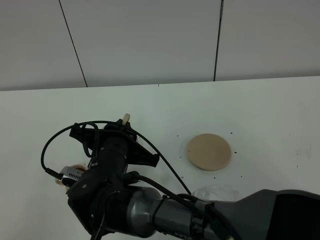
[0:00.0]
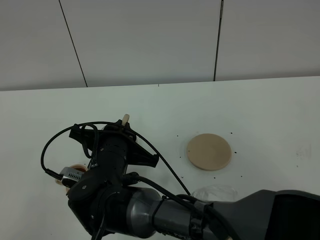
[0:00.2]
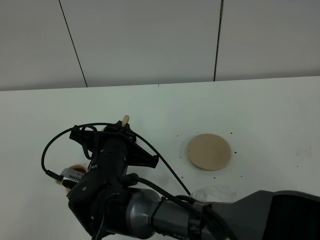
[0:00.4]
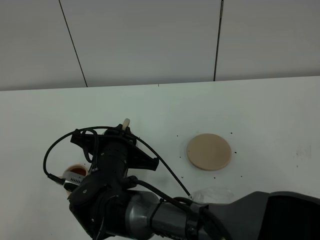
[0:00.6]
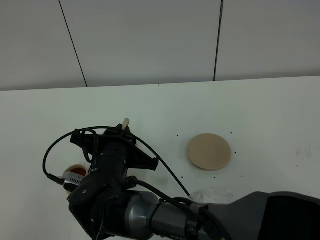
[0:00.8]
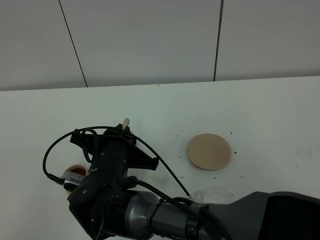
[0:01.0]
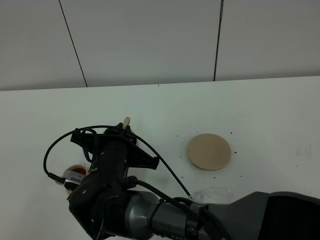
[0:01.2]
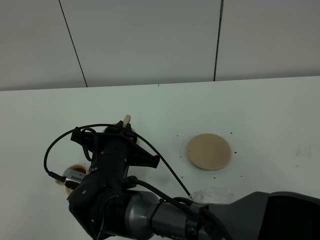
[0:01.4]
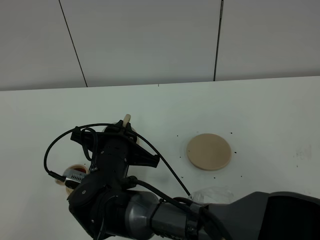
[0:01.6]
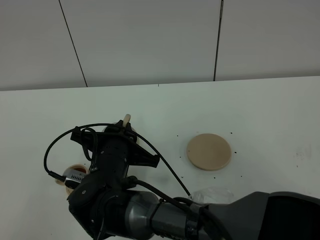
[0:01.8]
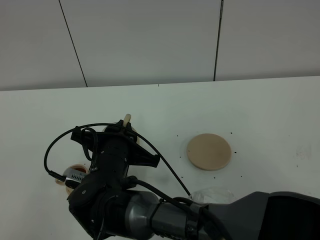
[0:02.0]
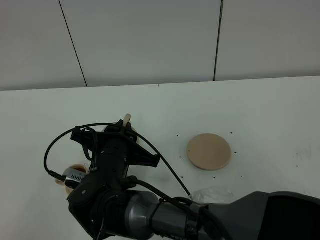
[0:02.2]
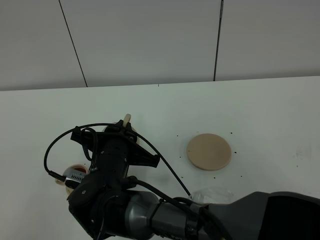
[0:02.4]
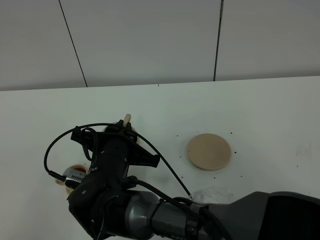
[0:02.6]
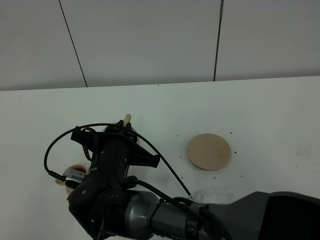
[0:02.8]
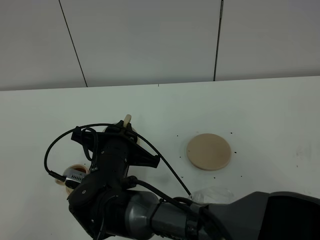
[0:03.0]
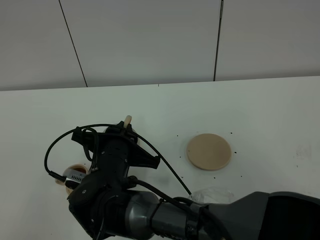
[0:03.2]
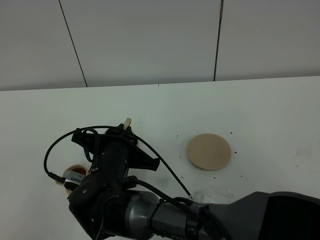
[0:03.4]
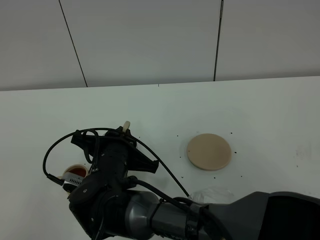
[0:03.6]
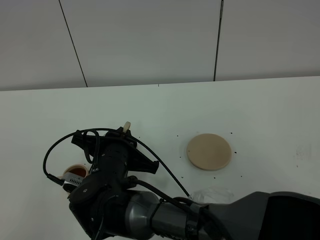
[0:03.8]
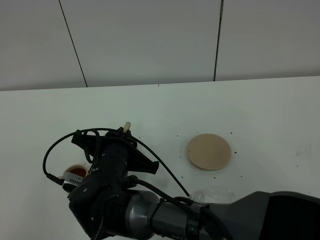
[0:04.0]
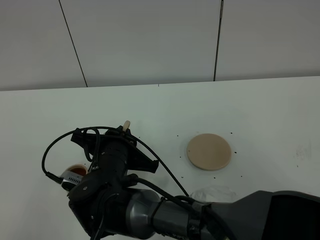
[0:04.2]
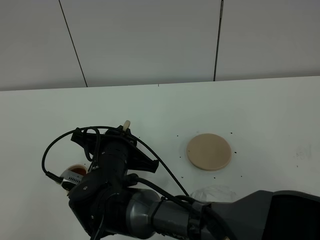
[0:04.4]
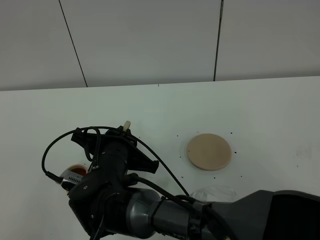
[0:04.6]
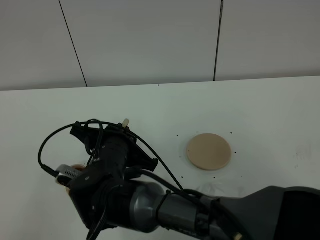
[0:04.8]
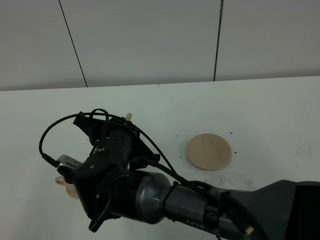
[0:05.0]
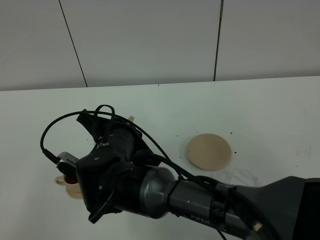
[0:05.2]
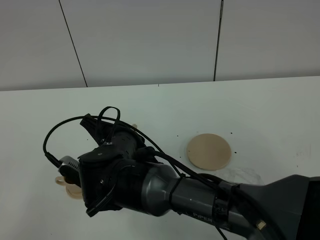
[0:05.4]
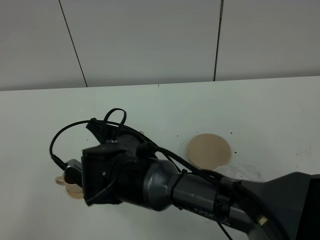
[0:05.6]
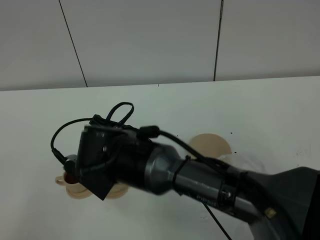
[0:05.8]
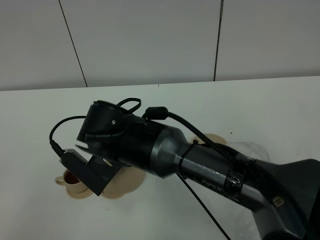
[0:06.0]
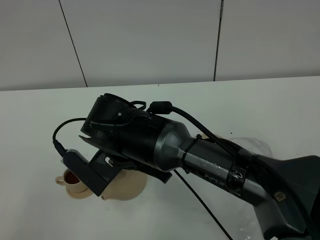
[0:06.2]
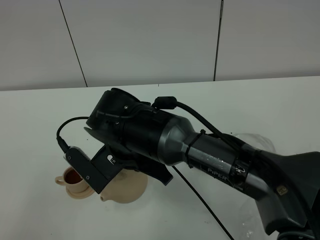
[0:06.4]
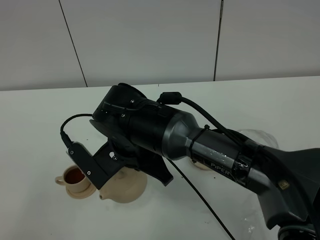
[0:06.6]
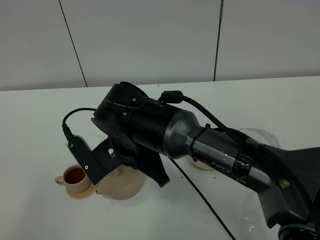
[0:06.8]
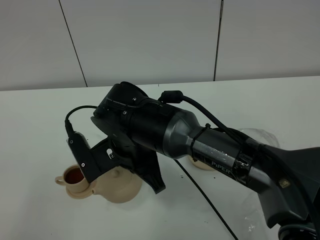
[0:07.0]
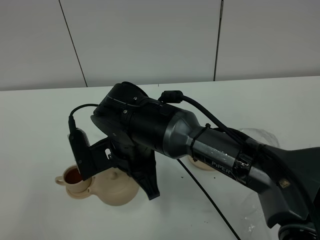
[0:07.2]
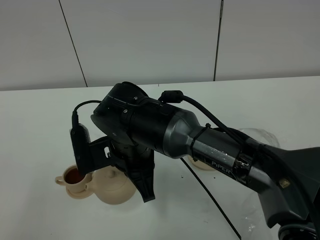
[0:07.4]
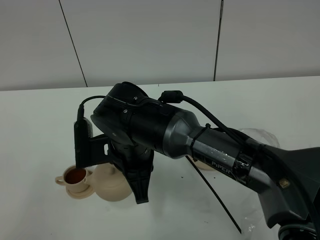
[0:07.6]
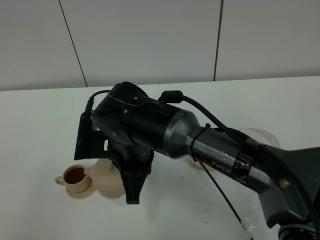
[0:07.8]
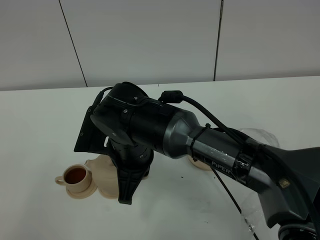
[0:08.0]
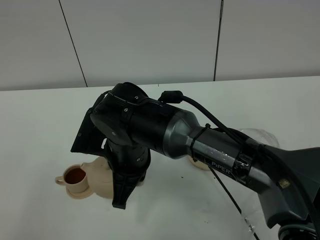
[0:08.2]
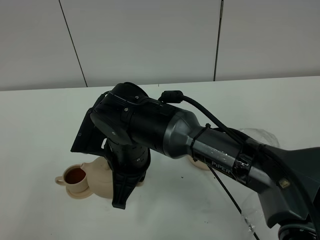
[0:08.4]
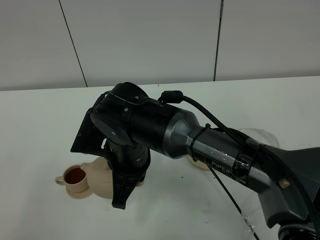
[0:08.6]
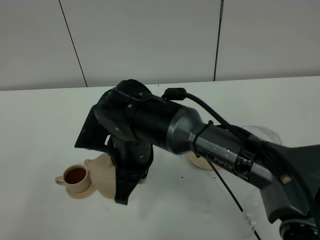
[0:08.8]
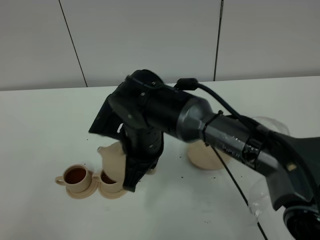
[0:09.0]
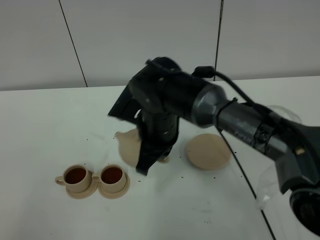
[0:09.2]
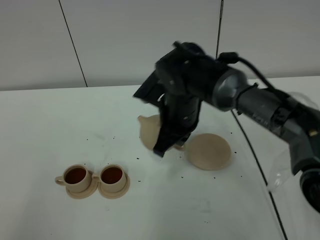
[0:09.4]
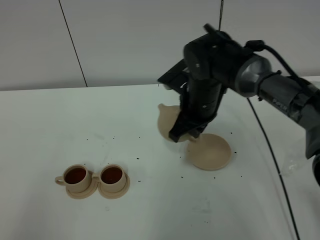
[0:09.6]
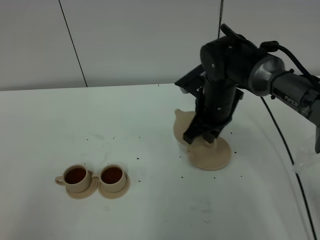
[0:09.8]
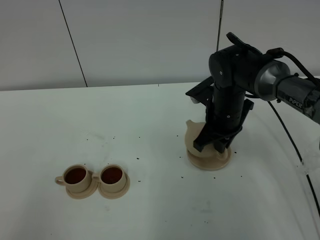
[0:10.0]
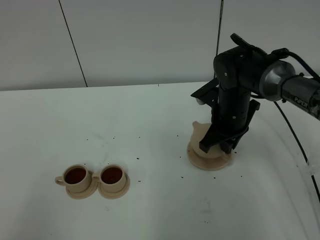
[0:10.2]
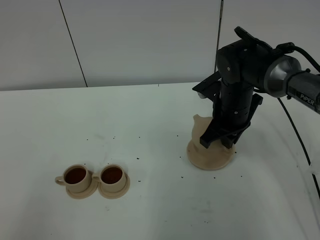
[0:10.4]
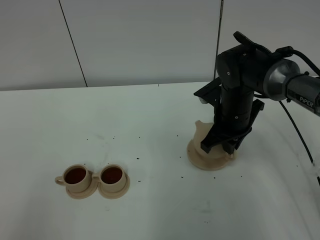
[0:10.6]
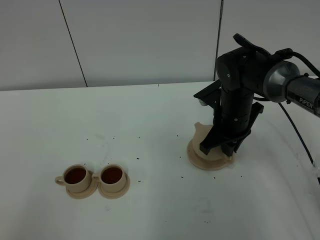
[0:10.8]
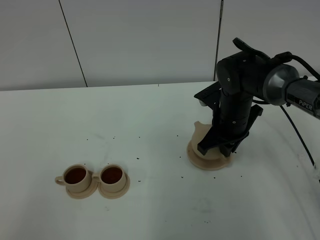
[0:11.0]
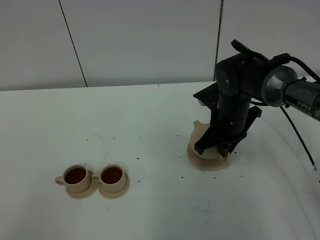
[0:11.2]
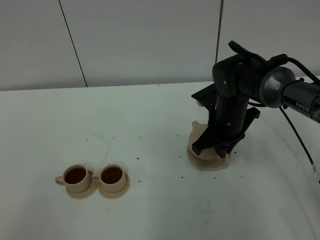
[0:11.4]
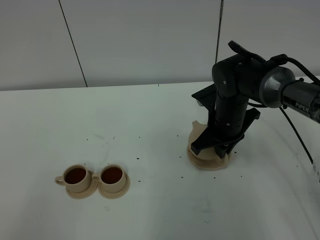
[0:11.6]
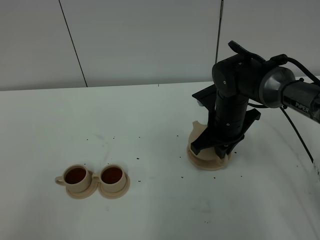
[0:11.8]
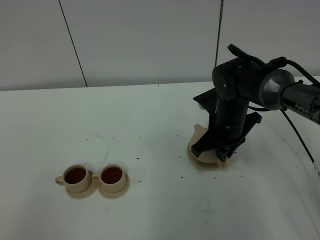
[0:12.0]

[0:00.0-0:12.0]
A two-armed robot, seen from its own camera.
Task of the whole recording: grasp the brown teapot and pour the tea into the two brown teacups one by one, put the brown teapot back in its original place.
Step, 0:00.0 to 0:06.0: Pour tea into the teacup with the right gripper.
0:00.0 to 0:03.0: Both grippers stay put.
0:03.0 to 0:04.4: The grippers stay close to where they were, moving slightly.
0:04.4 to 0:06.0: The right gripper shifts approximately 5 cm upward.
0:09.0 to 0:10.4: The right gripper shifts roughly 20 cm to the right and forward.
0:10.4 to 0:12.0: The grippers move only a little.

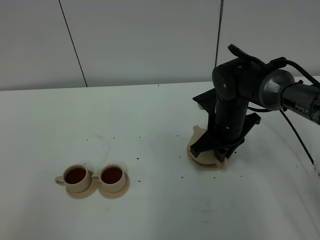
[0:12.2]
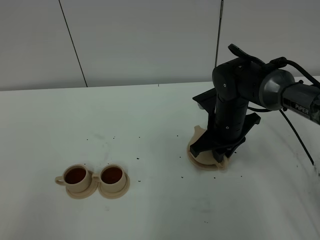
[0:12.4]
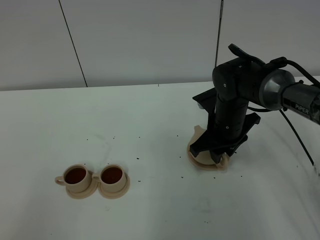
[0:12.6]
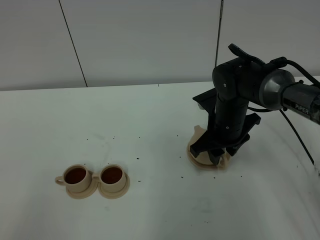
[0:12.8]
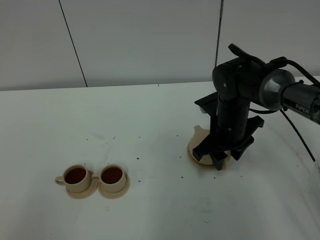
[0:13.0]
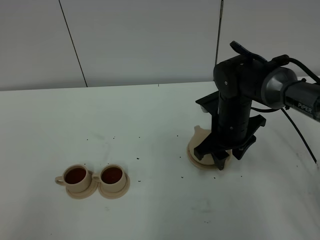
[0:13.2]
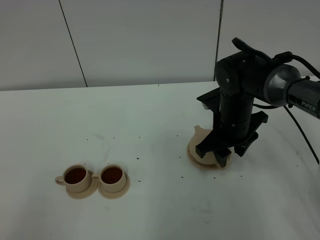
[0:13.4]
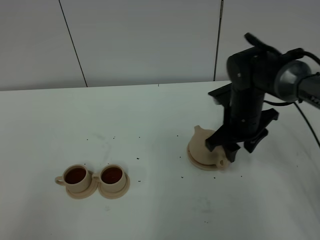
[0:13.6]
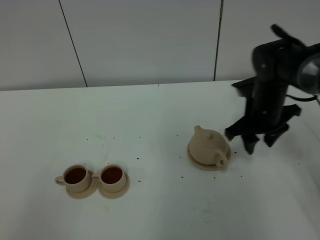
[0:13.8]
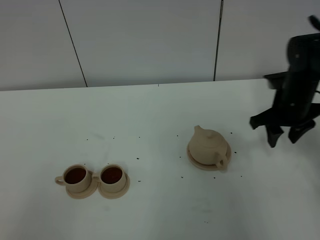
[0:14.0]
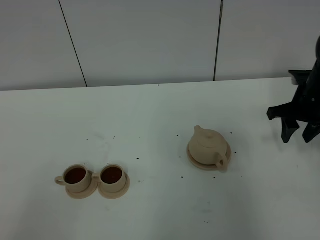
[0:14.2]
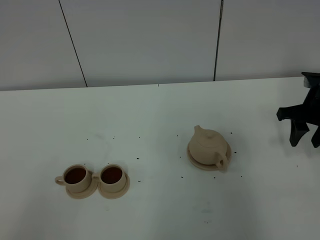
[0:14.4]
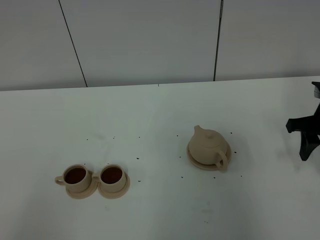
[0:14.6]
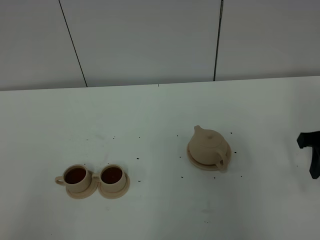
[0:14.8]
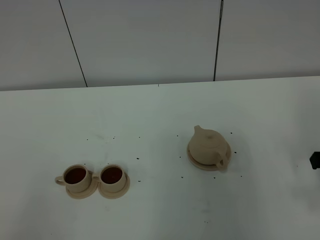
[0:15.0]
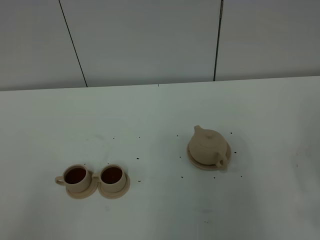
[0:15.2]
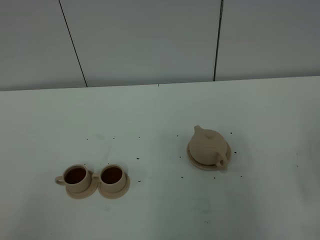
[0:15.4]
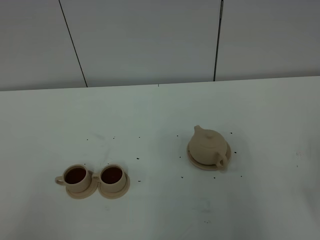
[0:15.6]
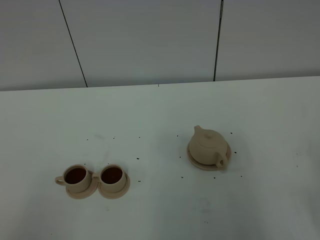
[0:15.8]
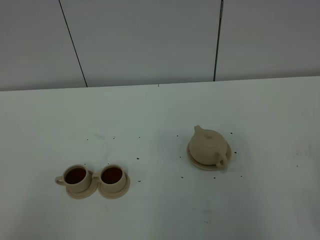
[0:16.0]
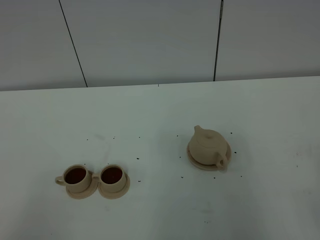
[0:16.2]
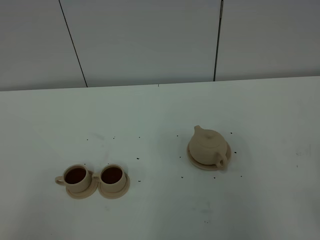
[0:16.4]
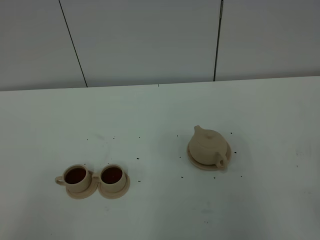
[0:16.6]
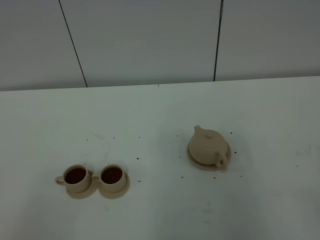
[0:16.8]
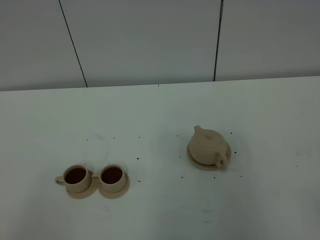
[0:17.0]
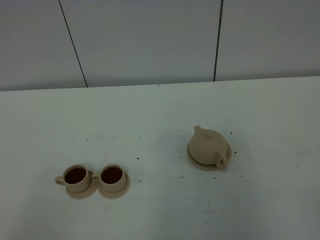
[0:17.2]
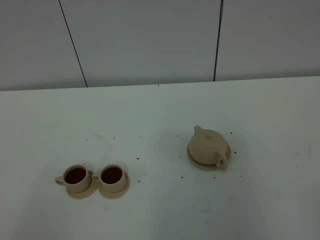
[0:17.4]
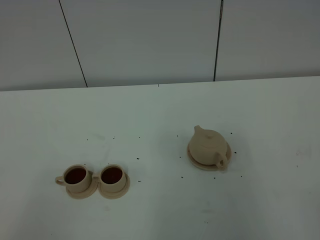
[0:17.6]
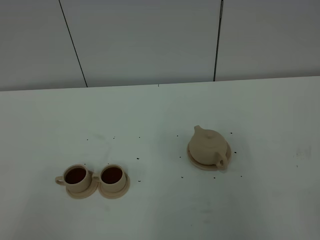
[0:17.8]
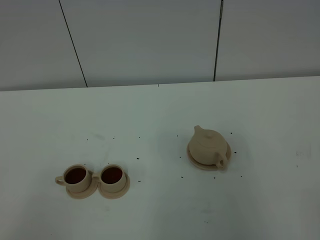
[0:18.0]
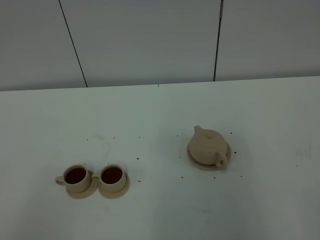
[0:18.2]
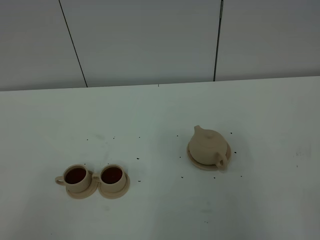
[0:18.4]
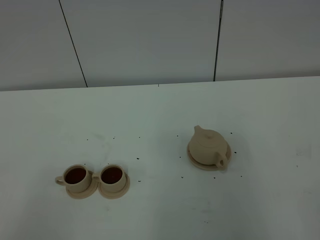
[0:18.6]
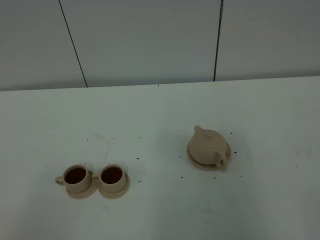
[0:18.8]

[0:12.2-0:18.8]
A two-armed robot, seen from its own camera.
Task of the whole recording: grasp the brown teapot and pour the tea into the two brown teacups one by one, put the brown teapot back in its original place.
0:12.2 to 0:13.8: The right gripper goes some 10 cm to the right, and opens its fingers.
0:13.8 to 0:15.4: The right gripper travels backward and to the right by approximately 25 cm.

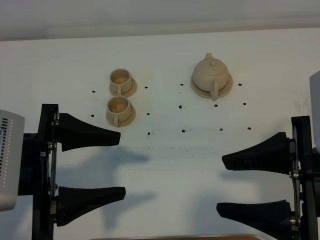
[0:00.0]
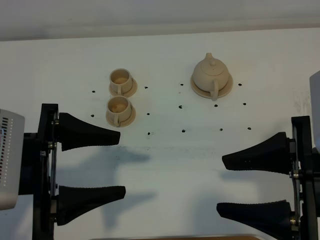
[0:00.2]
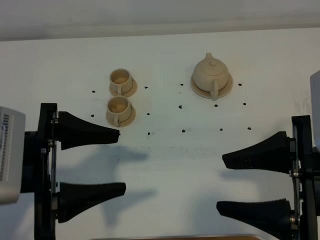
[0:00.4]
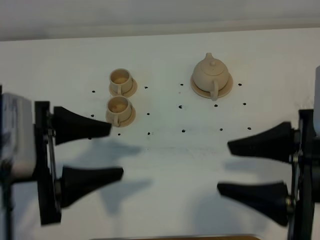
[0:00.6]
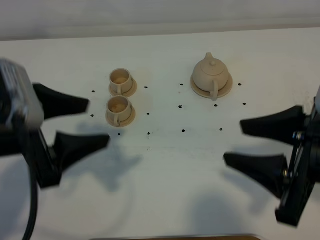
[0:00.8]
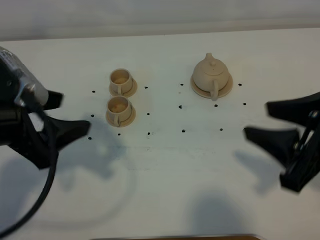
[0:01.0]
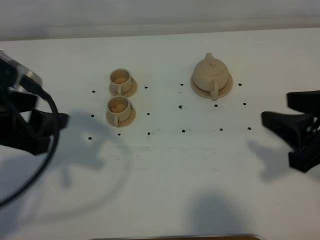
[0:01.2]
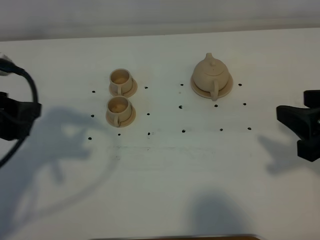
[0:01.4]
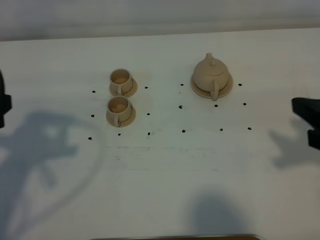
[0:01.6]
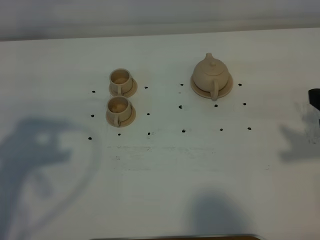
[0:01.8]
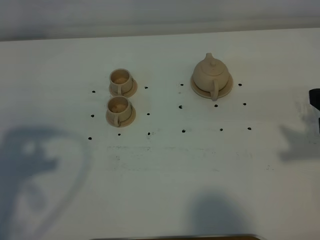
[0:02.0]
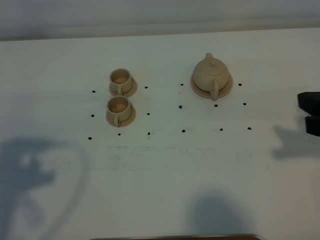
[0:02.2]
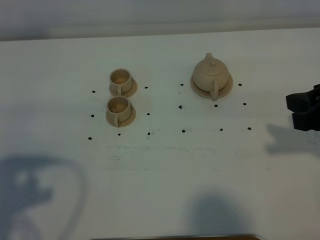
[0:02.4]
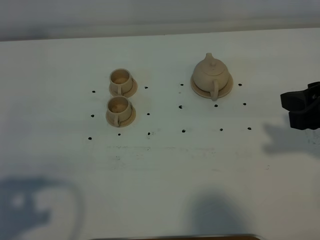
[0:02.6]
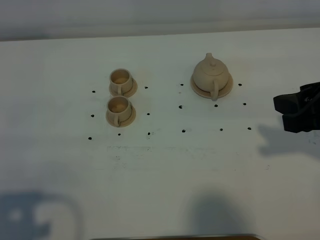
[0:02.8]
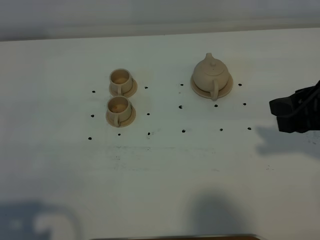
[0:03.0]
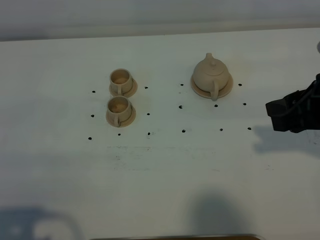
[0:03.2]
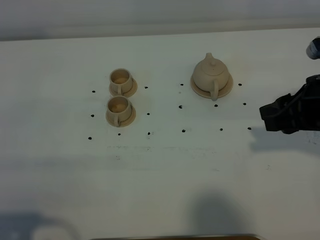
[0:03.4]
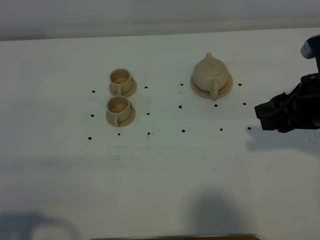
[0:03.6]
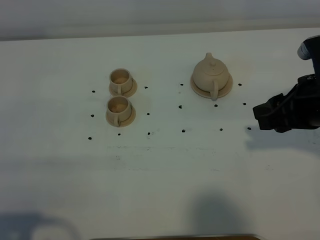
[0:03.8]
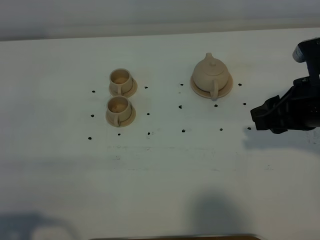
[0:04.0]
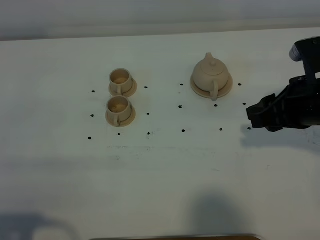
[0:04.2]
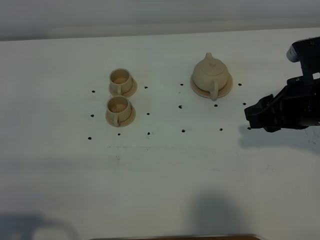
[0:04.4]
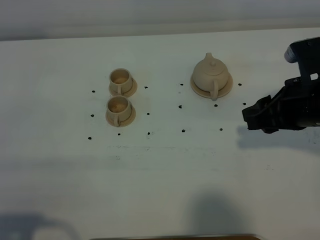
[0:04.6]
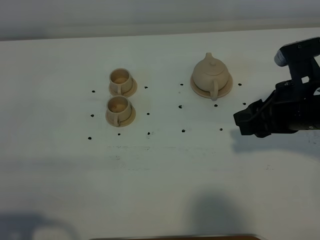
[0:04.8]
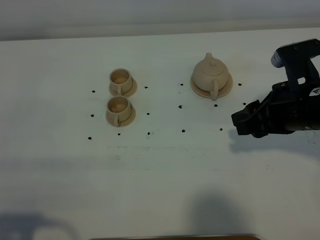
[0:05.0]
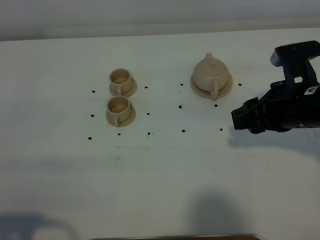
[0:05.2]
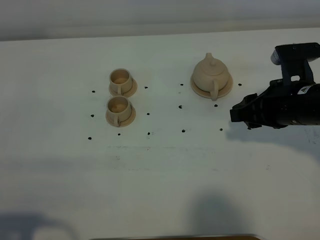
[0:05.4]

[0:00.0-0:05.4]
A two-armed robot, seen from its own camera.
Task of the whole recording: grasp the brown teapot and pour the tea into the two brown teacups one by one, put the brown teapot back in its original place.
0:00.0 to 0:01.4: The left gripper moves to the left, approximately 10 cm; the right gripper travels to the right and forward by about 10 cm.
0:01.4 to 0:02.8: The left gripper goes approximately 15 cm backward.
0:02.8 to 0:04.0: The right gripper goes about 5 cm downward.
0:04.0 to 0:05.4: The right gripper shifts by some 5 cm.
